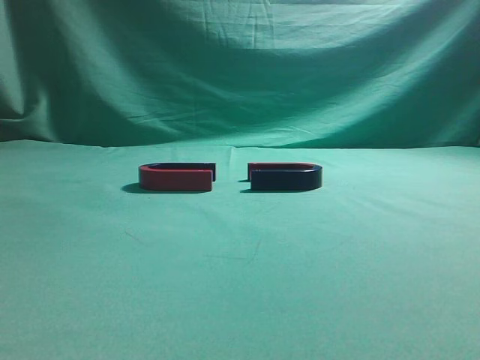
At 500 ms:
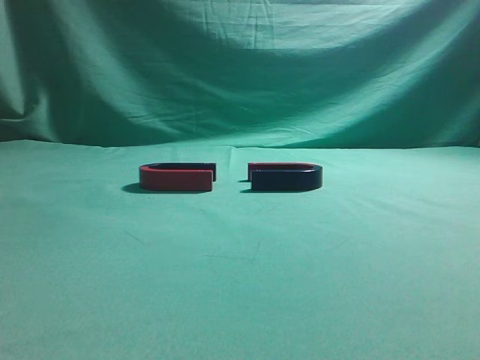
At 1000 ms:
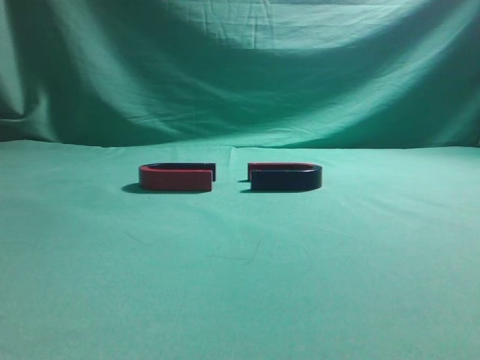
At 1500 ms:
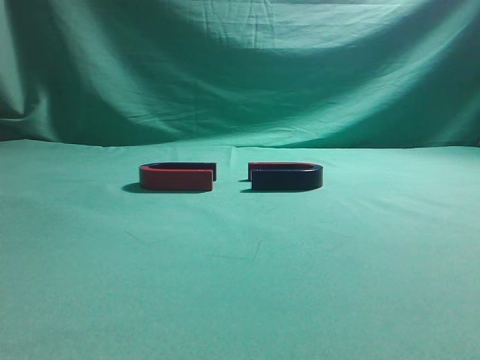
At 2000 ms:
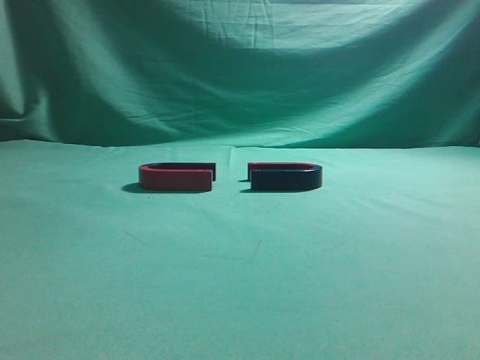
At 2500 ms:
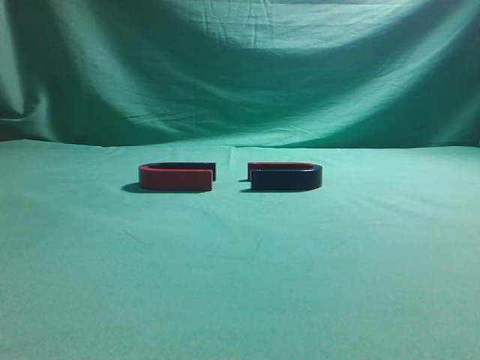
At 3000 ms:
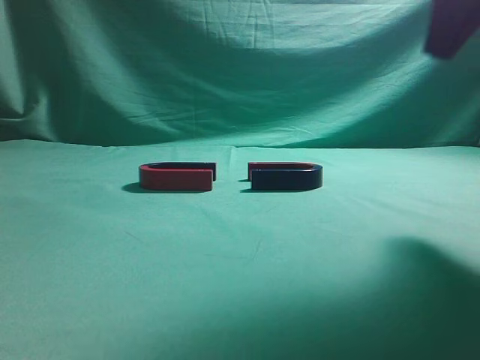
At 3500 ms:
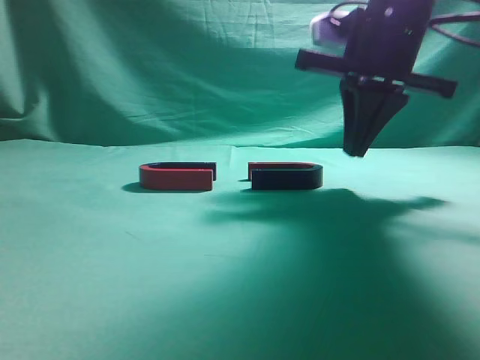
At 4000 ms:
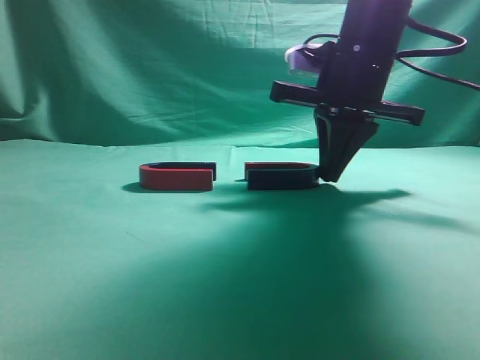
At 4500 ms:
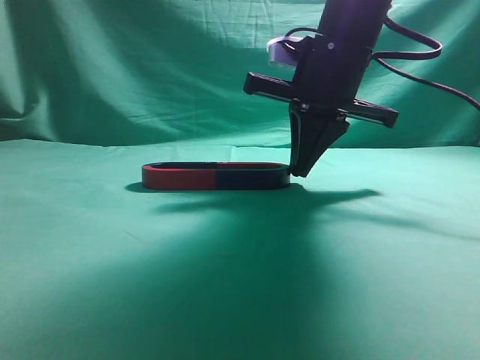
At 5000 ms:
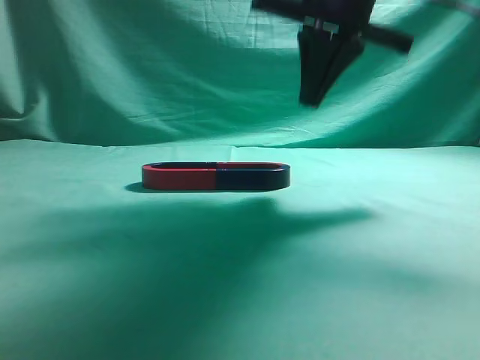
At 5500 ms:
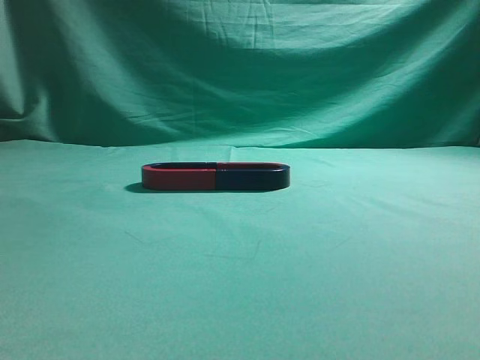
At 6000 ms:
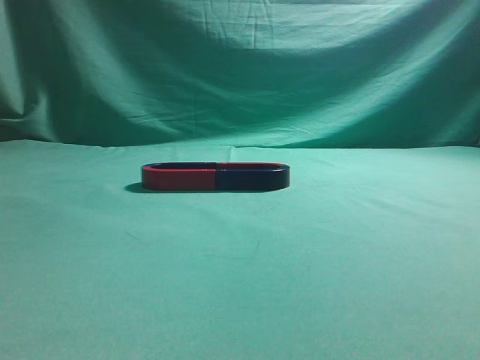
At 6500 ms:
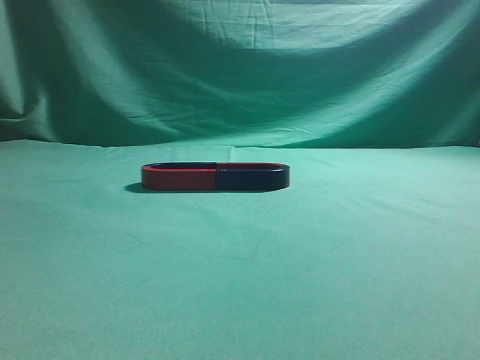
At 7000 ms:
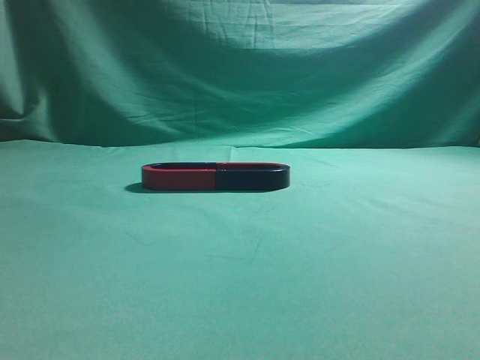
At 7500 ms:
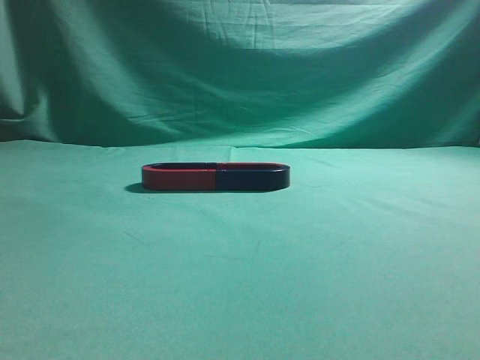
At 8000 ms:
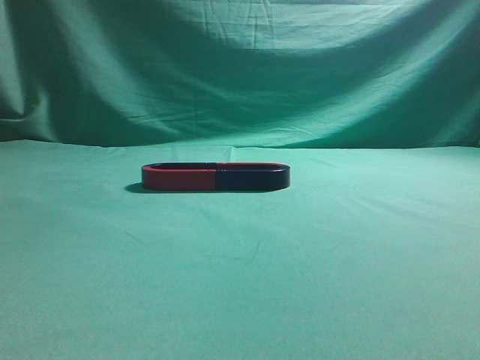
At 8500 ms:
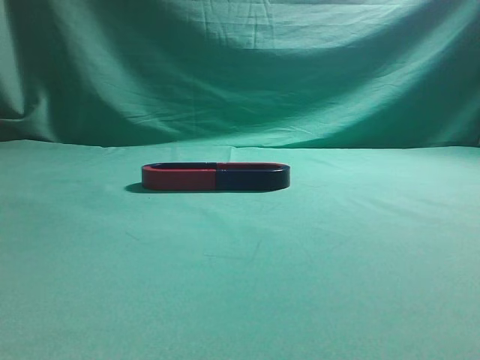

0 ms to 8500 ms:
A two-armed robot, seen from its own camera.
Task of the whole recording: push the magnet on the table from its original position to another position.
Step, 0 ms to 4500 ms: Push the magnet on the right to connect the magnet on the left.
2000 ms to 4000 ms: The right gripper goes some 35 cm forward and to the left.
4000 ms to 6500 ms: The right gripper is displaced backward, upward and to the right by some 35 cm.
